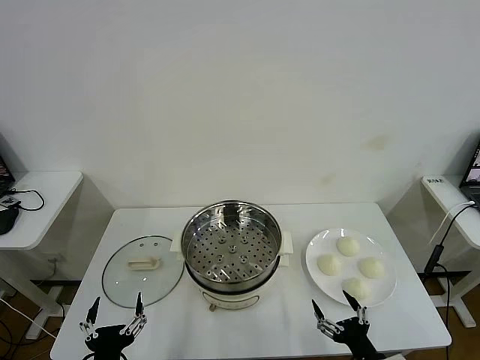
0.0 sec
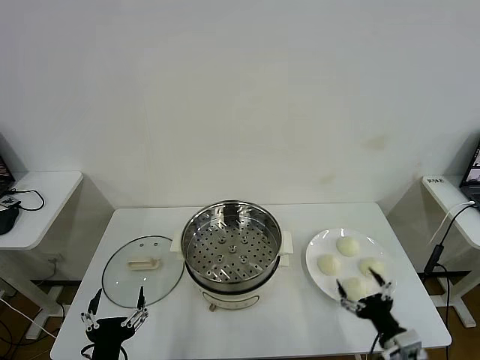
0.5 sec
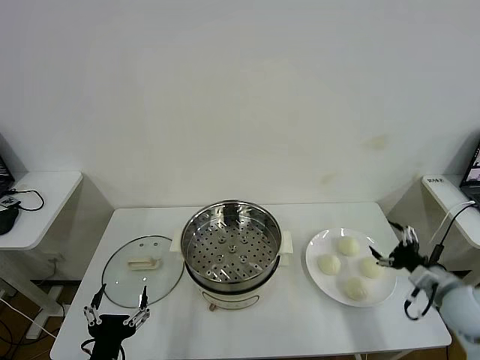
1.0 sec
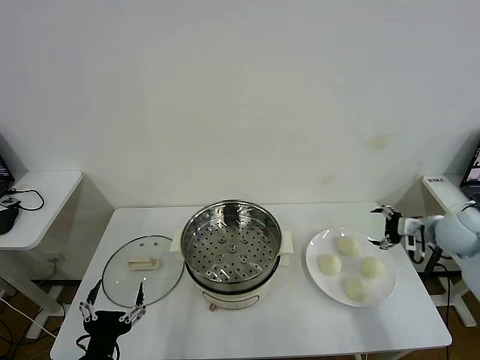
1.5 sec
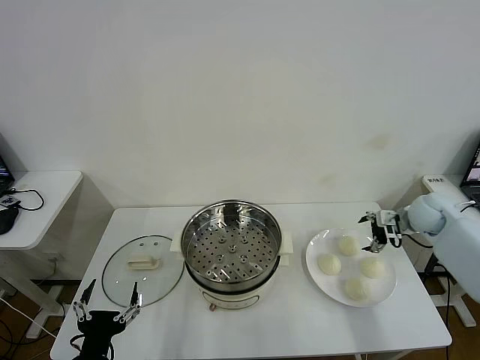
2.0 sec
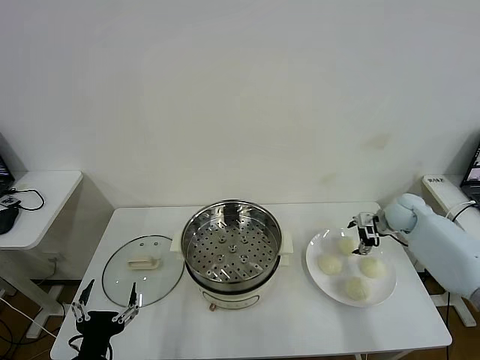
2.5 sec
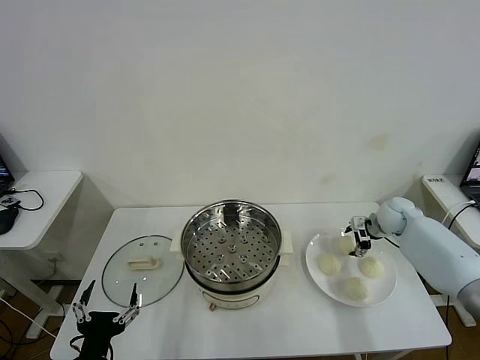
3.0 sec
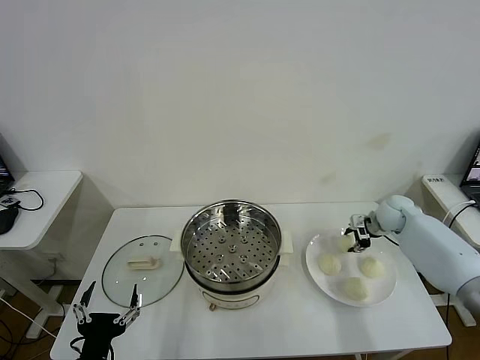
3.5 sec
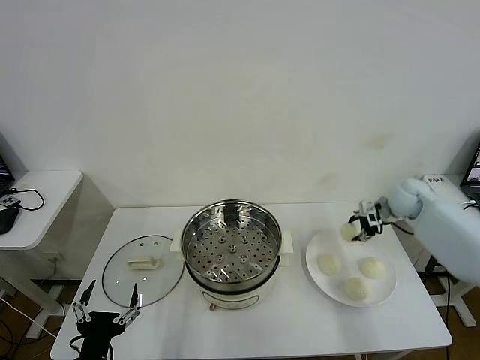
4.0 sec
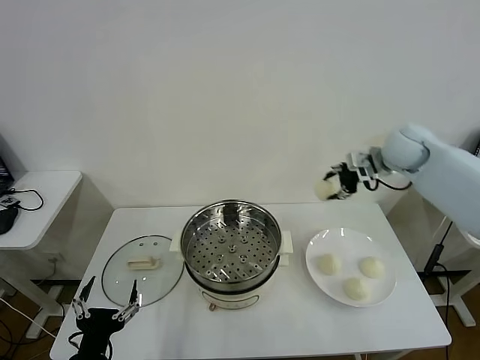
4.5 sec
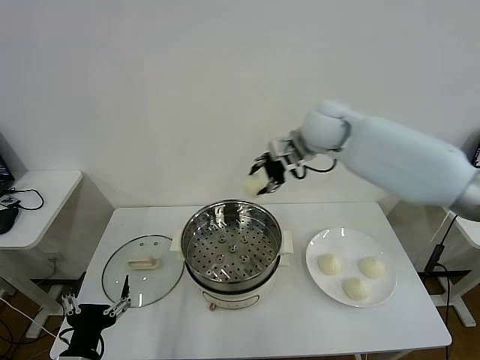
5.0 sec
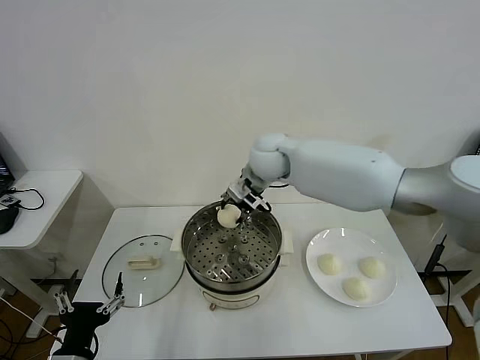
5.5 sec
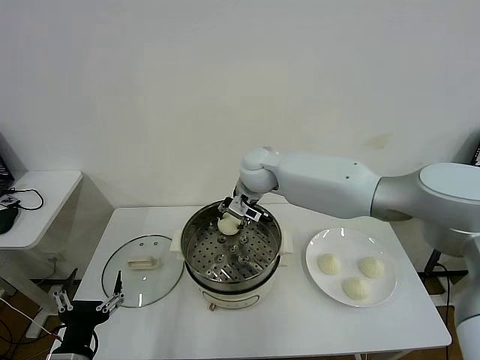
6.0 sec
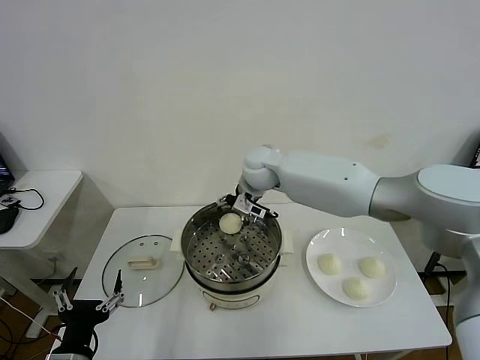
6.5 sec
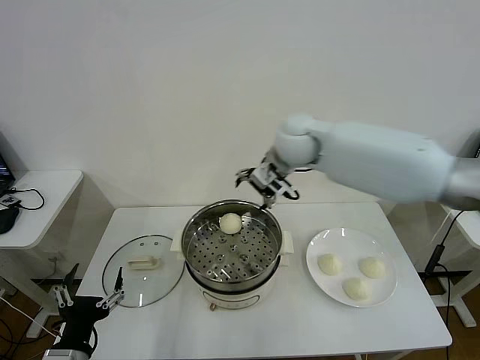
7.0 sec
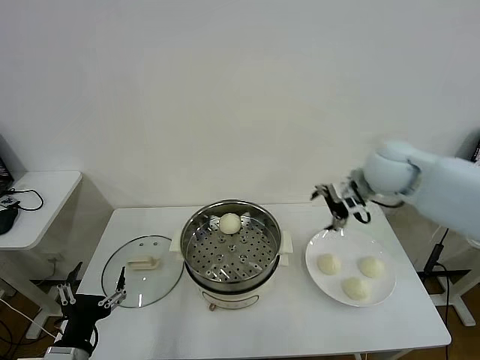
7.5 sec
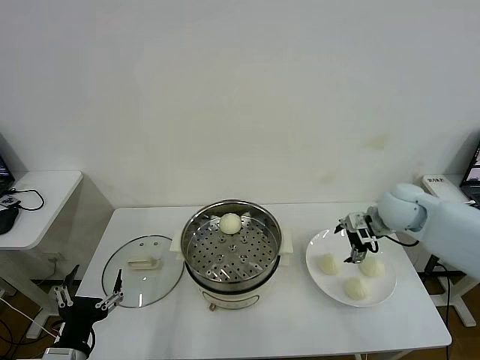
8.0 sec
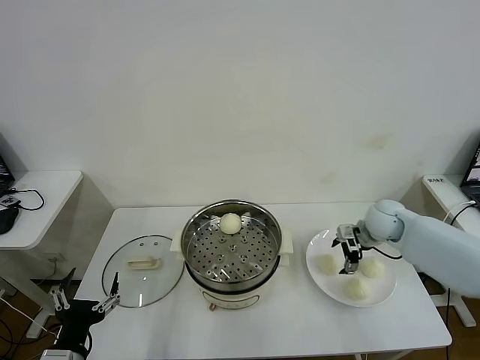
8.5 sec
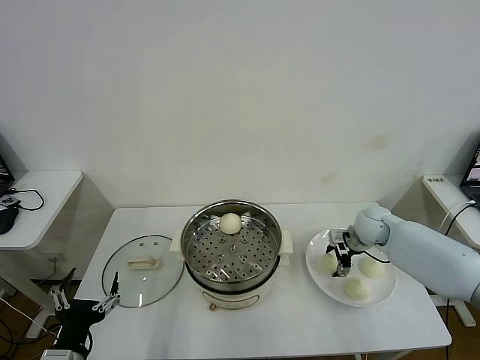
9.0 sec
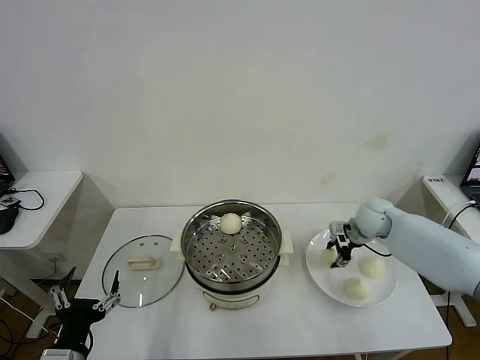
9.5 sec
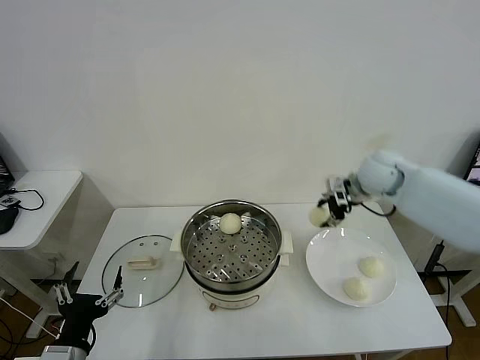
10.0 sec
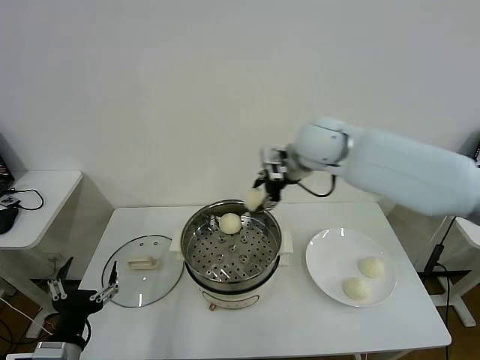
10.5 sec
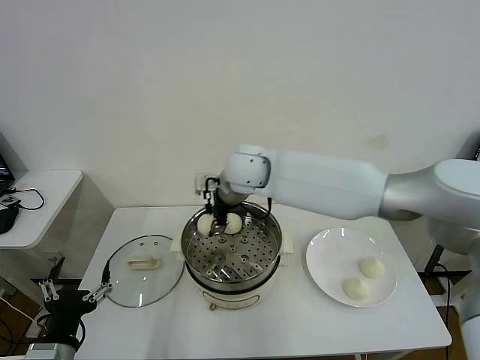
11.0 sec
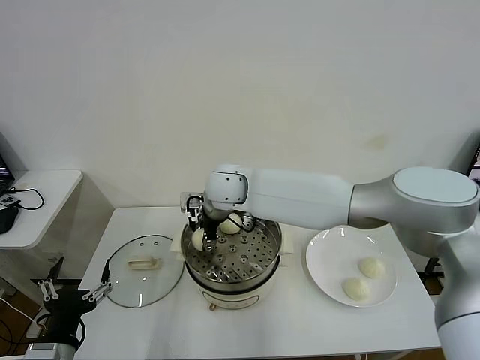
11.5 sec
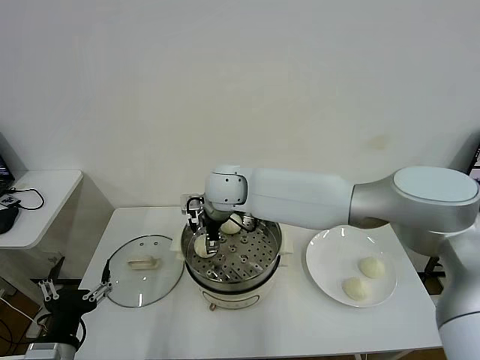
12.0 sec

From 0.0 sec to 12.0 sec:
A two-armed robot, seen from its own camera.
Task of the whole recording: take steamed baozi put them in steamer then cover it.
Step, from 0.0 sec to 3.5 sec: Grasp the baozi in the plate with right gripper.
Step, from 4.0 sec to 6.5 sec: Place the baozi on the steamer with right gripper.
Step, from 7.0 sec to 9.0 sec: Grasp the baozi in the plate with right gripper.
Step, from 9.5 sec to 12.0 sec: Place the baozi on the steamer with right gripper.
From 2.0 sec to 4.0 sec: The right gripper moves some 5 cm, and closes up.
From 4.0 sec to 6.0 sec: The right gripper goes roughly 40 cm to the left.
From 6.0 sec to 8.0 sec: The right gripper goes roughly 30 cm to the right, and opens up.
From 8.0 sec to 10.0 sec: The right gripper goes some 5 cm forward, reaches approximately 10 cm downward, then returns, and closes up.
From 10.0 sec to 12.0 sec: The right gripper travels to the left by some 35 cm, and opens up.

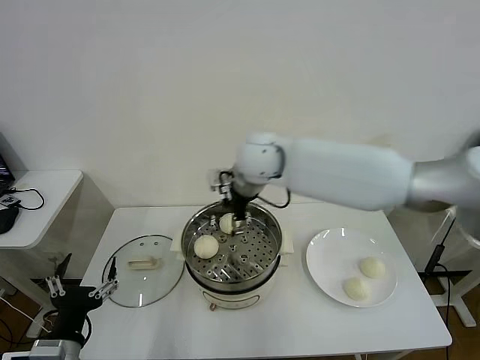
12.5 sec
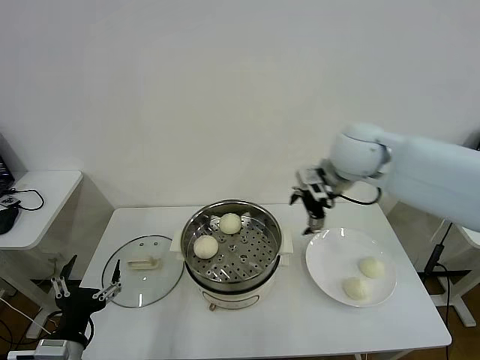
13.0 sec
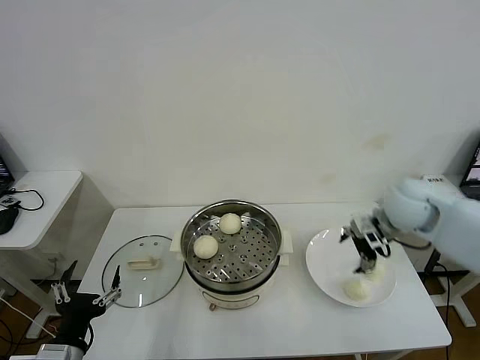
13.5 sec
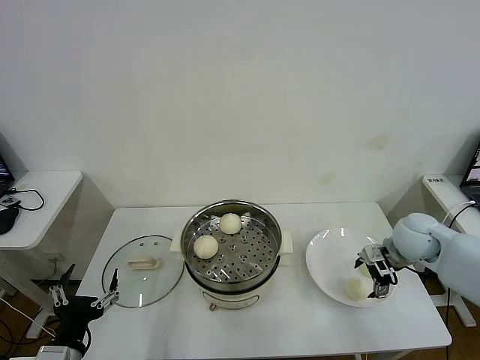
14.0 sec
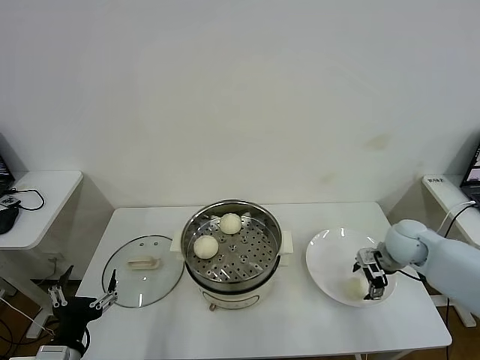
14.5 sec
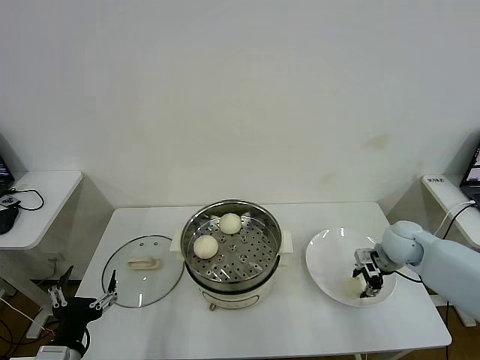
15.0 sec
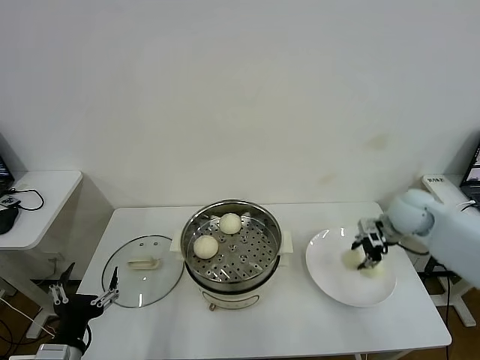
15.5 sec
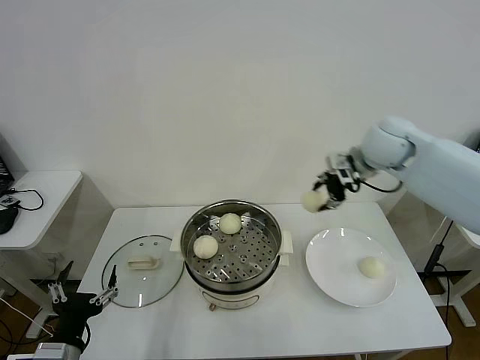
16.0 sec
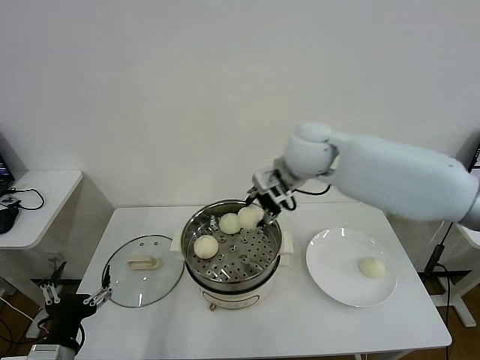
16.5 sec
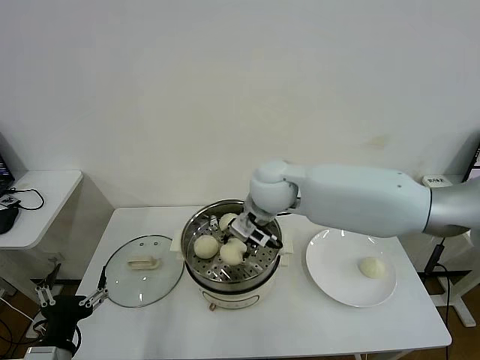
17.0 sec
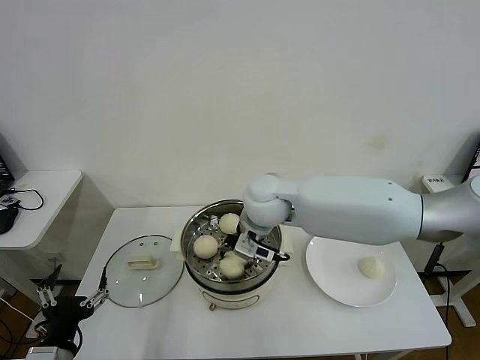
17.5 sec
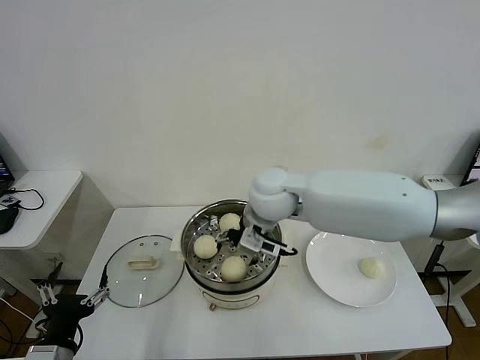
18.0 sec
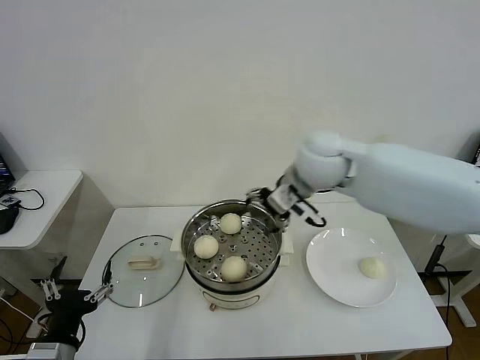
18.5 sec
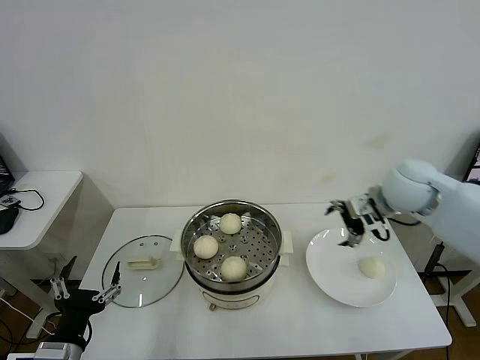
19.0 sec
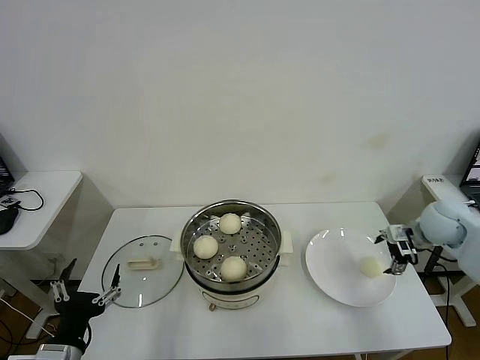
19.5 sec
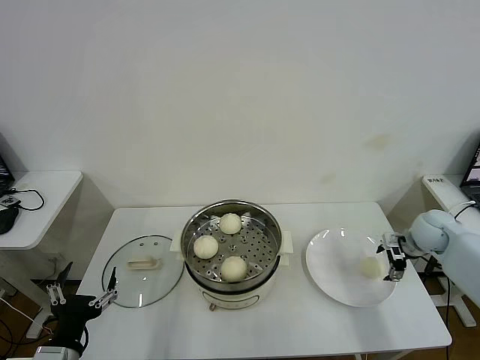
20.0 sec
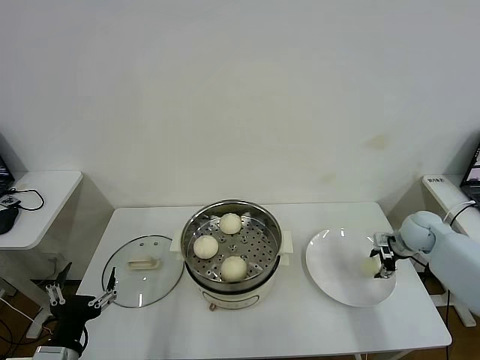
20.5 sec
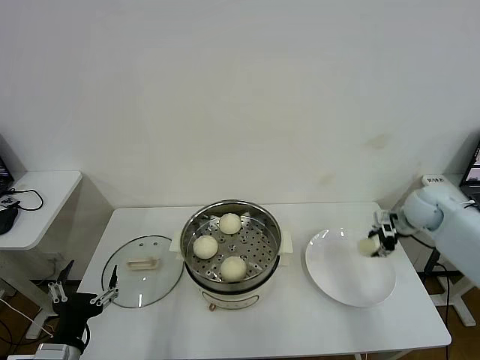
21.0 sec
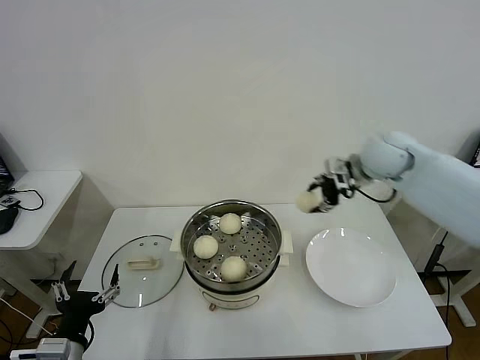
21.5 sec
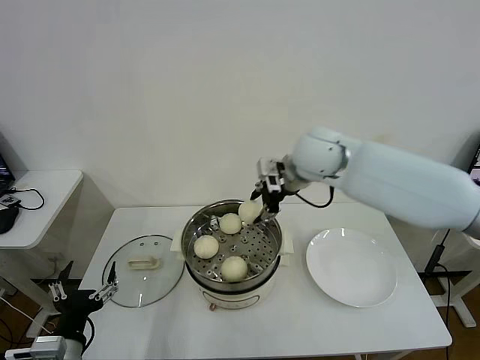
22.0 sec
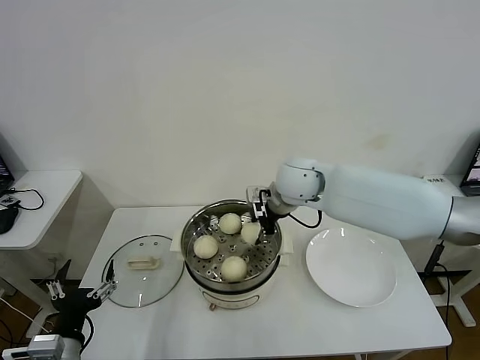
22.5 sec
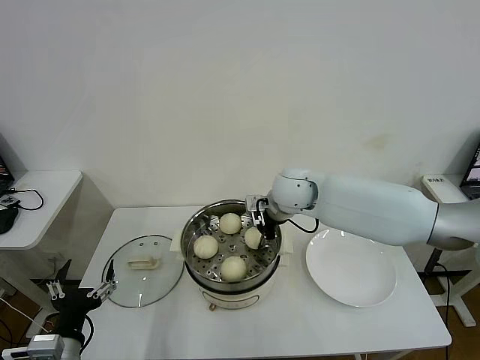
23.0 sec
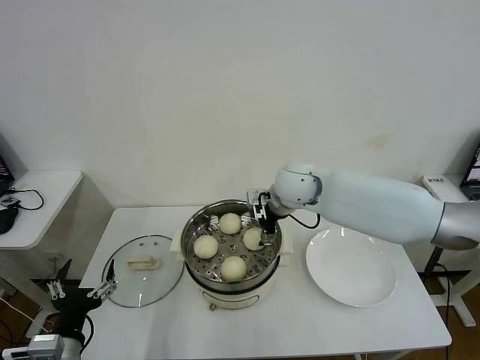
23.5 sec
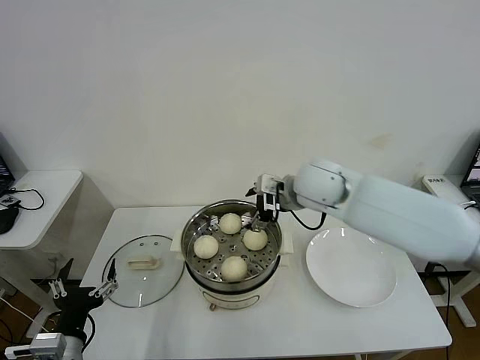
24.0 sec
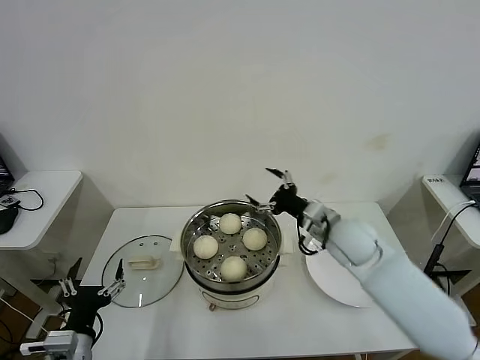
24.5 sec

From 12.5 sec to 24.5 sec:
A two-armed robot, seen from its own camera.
Task of the whole recording: take steamed baozi put them in steamer then cover it.
Step, from 12.5 sec to 14.5 sec: Grasp the baozi in the plate with right gripper.
Step, from 15.5 sec to 17.5 sec: Place the baozi on the steamer with right gripper.
Step, from 18.0 sec to 20.5 sec: Grasp the baozi in the plate with right gripper.
Step, from 21.0 sec to 23.0 sec: Place the baozi on the steamer with right gripper.
From 12.5 sec to 14.5 sec: The right gripper shifts about 40 cm to the right and downward.
From 14.5 sec to 16.5 sec: The right gripper goes approximately 35 cm to the left and upward, and closes up.
From 16.5 sec to 18.5 sec: The right gripper goes to the left and returns, roughly 10 cm each way, and opens.
From 18.5 sec to 20.5 sec: The right gripper shifts some 40 cm to the right and downward, and closes its fingers.
From 20.5 sec to 22.5 sec: The right gripper shifts about 40 cm to the left and upward.
From 22.5 sec to 24.5 sec: The right gripper heads to the right, downward and backward, covering about 15 cm, and opens.

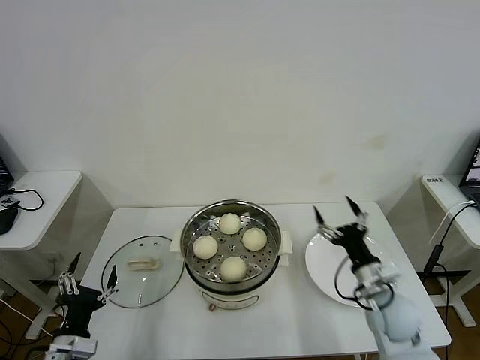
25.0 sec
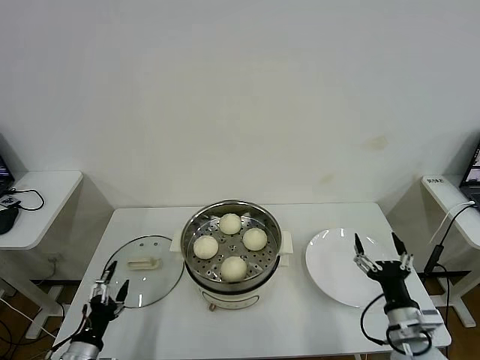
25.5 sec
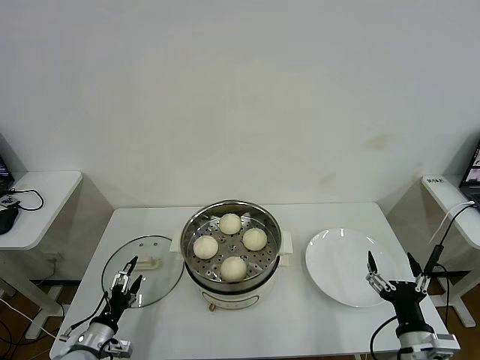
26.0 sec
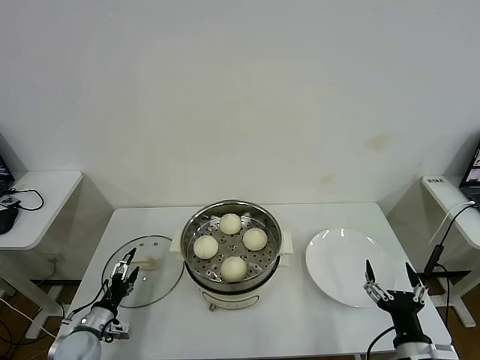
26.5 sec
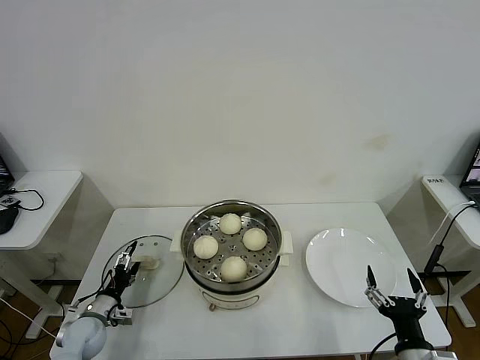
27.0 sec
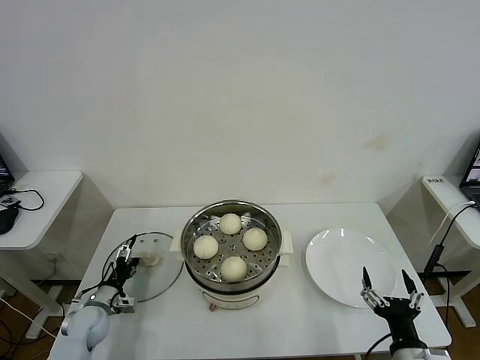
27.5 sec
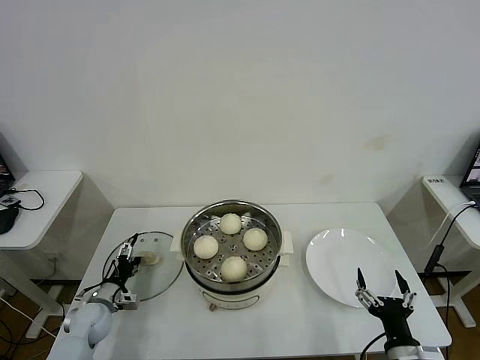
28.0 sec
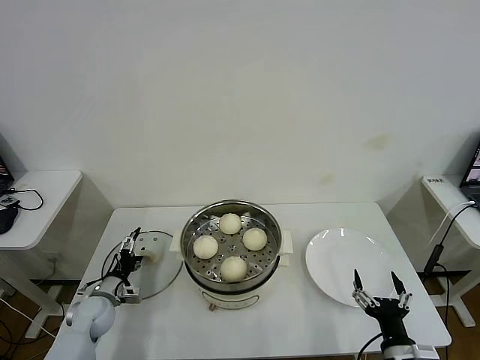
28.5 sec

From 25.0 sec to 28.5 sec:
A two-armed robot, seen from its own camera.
Task of the whole recording: take steamed baozi put them in steamer then cover it.
From 25.0 sec to 27.0 sec: The left gripper goes about 20 cm forward, downward and to the left. The right gripper is displaced backward by roughly 20 cm.
From 27.0 sec to 28.5 sec: The left gripper changes place by some 5 cm.
